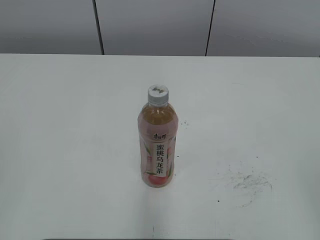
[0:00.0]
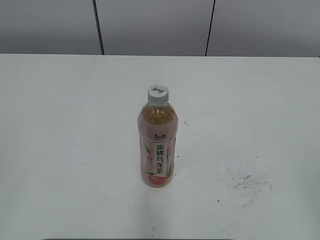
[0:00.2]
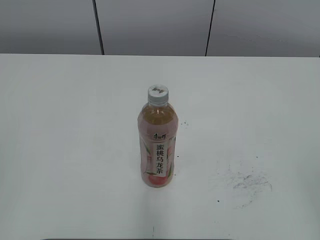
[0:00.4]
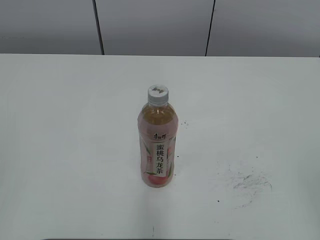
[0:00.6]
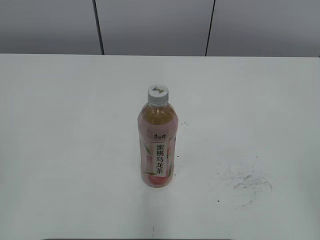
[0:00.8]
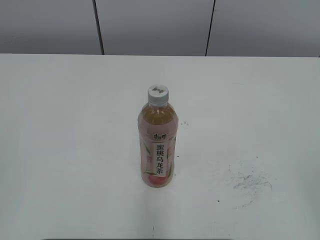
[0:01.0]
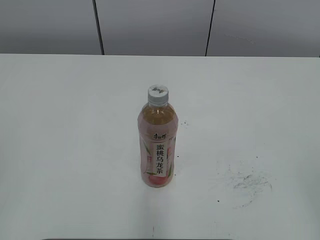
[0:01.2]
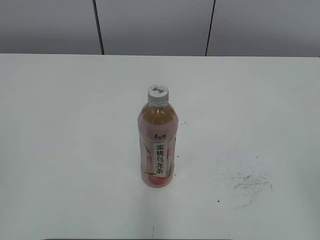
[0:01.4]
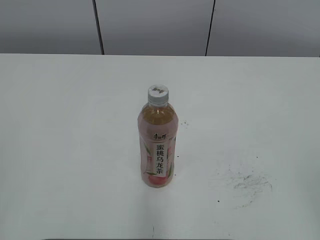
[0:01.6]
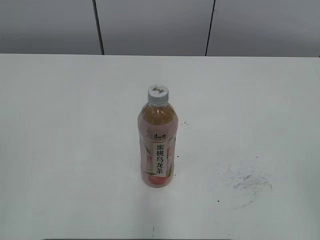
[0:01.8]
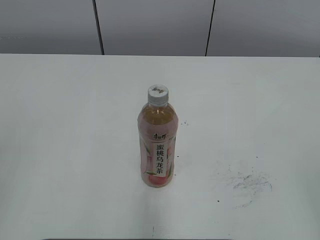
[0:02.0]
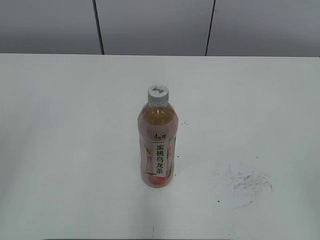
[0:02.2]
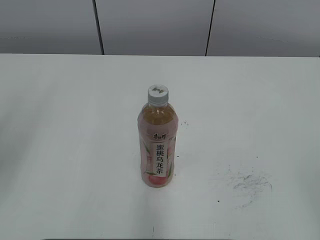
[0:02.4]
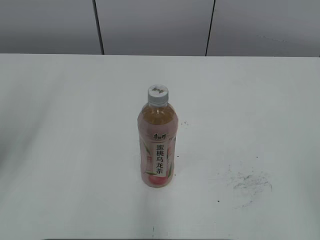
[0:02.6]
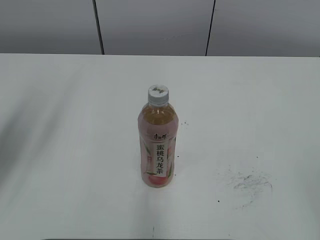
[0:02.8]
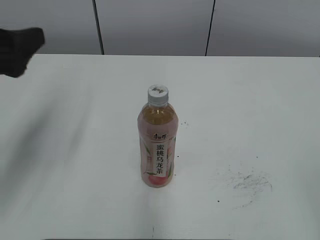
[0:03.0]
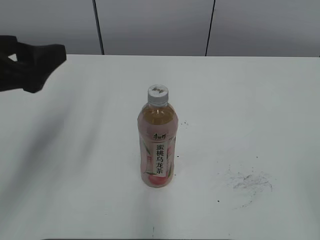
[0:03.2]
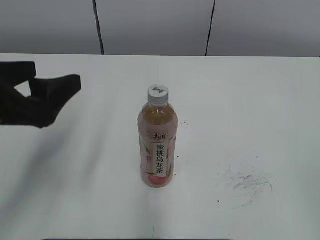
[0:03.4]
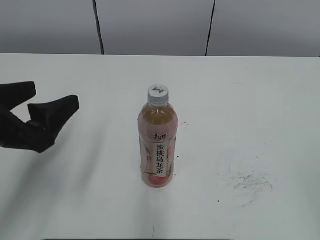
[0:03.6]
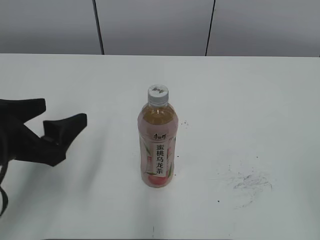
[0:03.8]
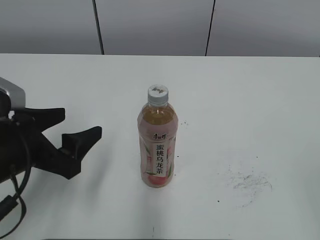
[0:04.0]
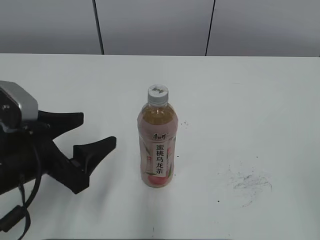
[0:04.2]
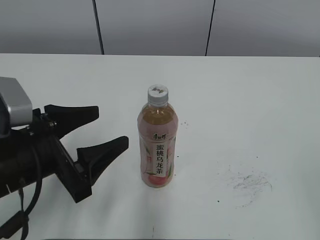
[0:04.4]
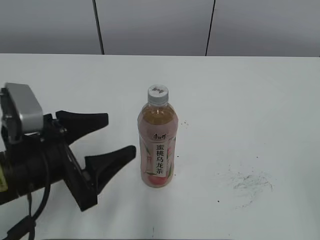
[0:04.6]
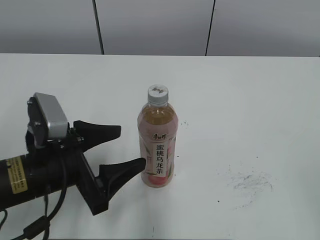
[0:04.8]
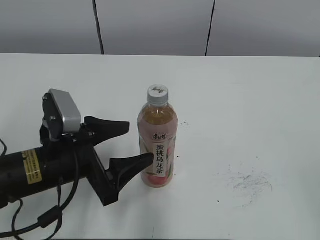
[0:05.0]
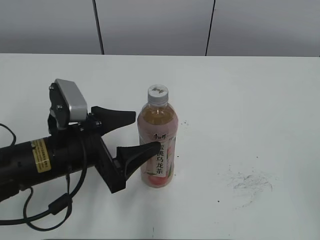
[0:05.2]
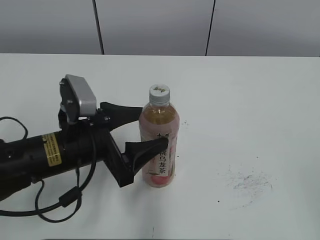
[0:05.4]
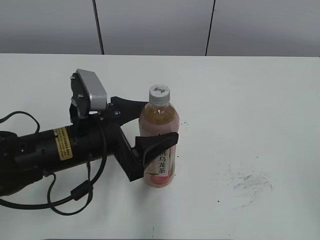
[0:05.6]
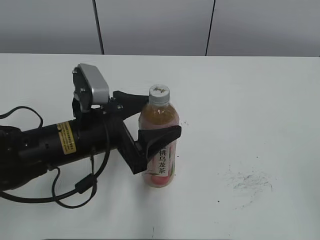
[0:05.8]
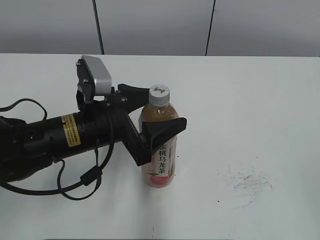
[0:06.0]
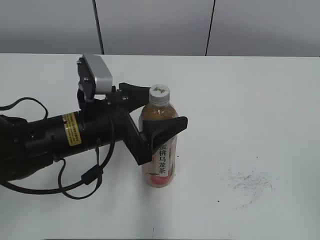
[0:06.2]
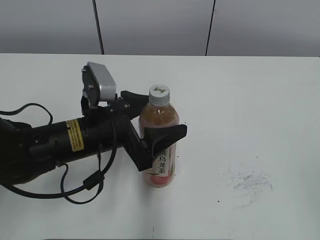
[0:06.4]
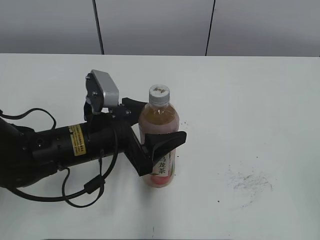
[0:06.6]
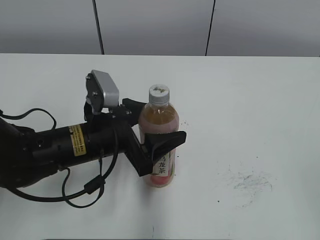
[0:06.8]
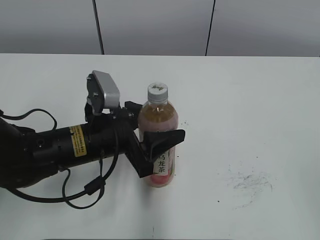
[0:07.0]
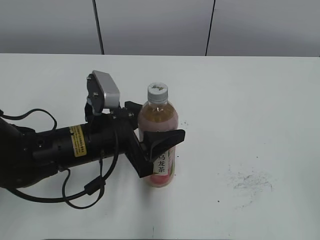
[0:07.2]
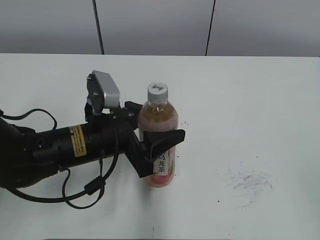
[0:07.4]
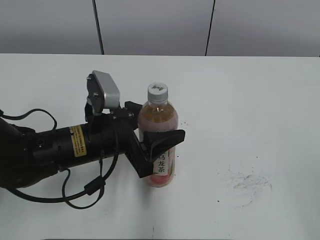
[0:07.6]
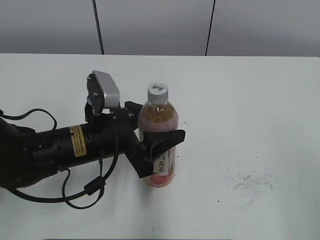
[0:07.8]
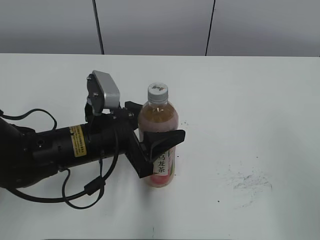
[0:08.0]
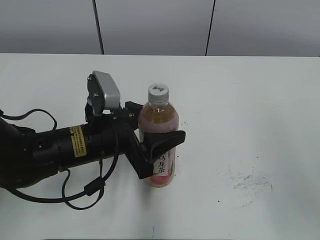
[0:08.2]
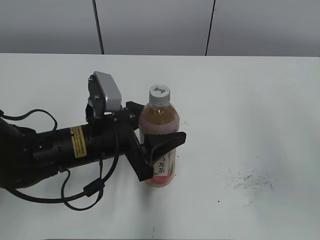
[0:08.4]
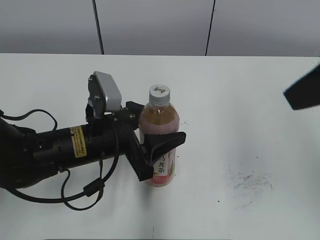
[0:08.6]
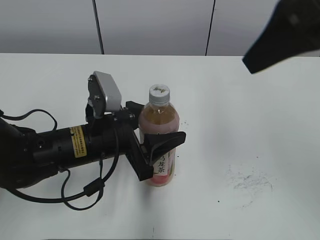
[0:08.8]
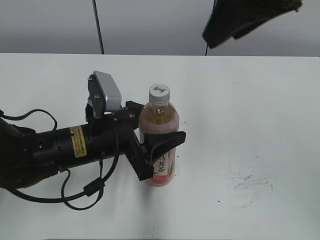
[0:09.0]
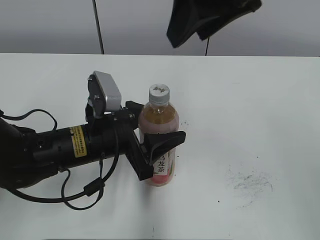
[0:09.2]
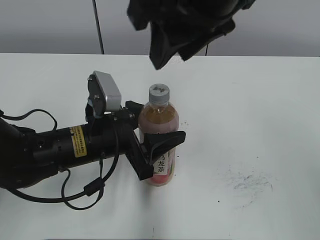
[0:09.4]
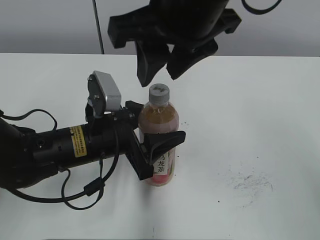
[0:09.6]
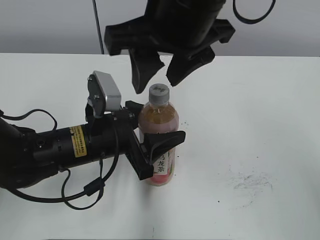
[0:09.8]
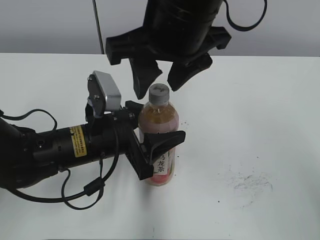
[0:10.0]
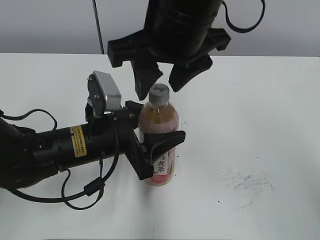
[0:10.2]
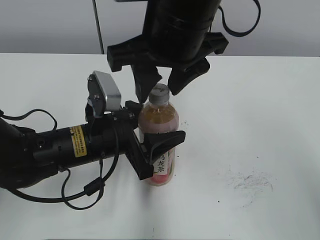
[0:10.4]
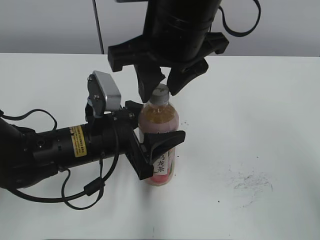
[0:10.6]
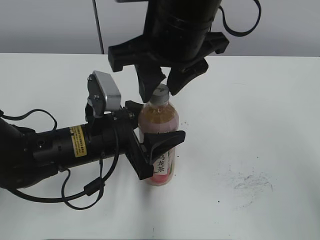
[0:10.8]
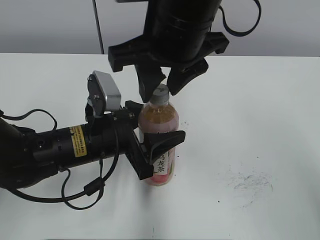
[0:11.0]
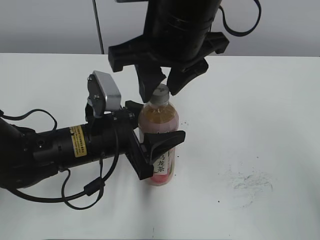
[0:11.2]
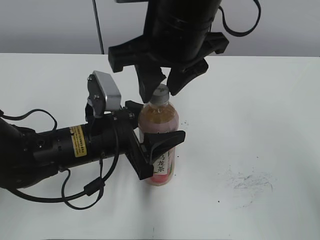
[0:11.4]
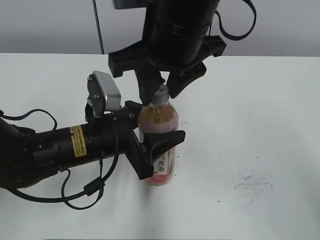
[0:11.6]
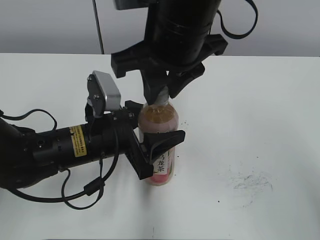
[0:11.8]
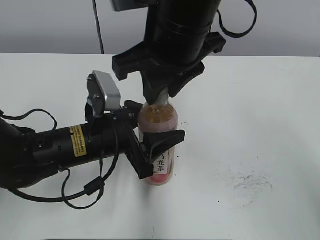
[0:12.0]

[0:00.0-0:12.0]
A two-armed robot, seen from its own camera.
Step, 0:00.0 to 0:09.6: Grab the Peach Oolong Tea with the left hand.
0:01.6 to 0:03.0: The left gripper is displaced forward by approximately 20 cm, and opens.
0:03.0 to 0:04.4: The left gripper goes some 15 cm downward and to the right.
0:04.4 to 0:06.0: The left gripper heads to the right and forward, covering some 10 cm.
0:06.0 to 0:07.6: The grippers move only a little.
0:07.6 to 0:09.0: The right gripper travels forward, to the left and upward by approximately 30 cm.
0:09.0 to 0:10.4: The right gripper is displaced to the left and downward by roughly 15 cm.
0:10.4 to 0:12.0: The grippers make only small movements.

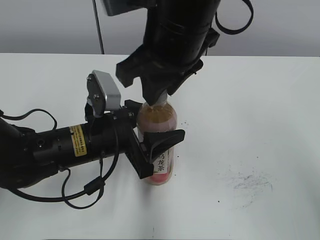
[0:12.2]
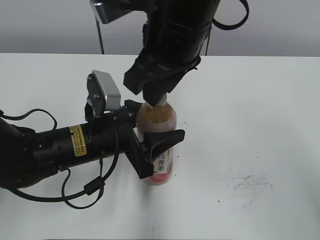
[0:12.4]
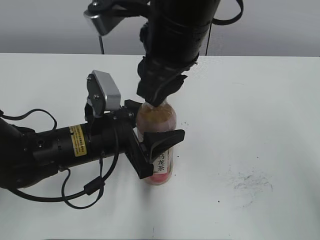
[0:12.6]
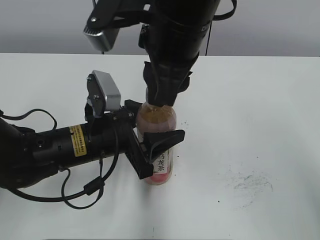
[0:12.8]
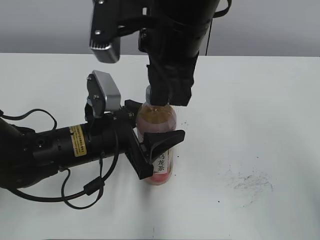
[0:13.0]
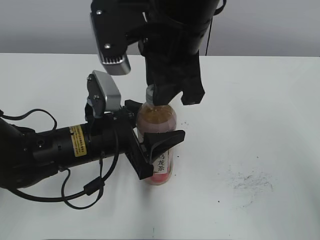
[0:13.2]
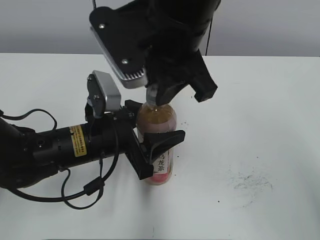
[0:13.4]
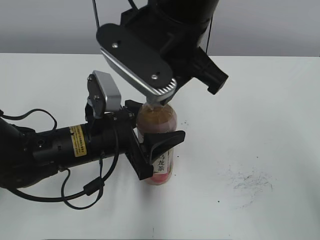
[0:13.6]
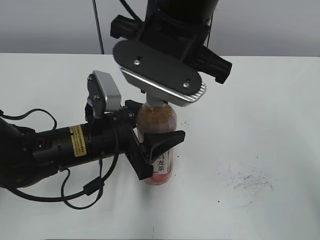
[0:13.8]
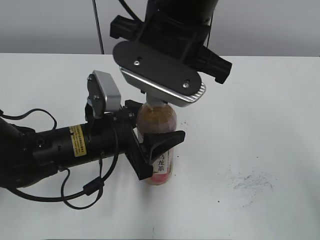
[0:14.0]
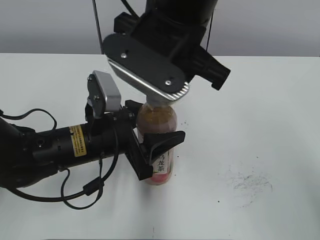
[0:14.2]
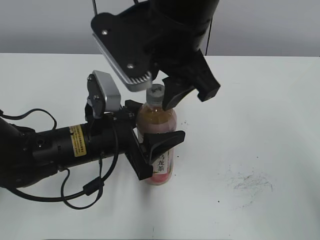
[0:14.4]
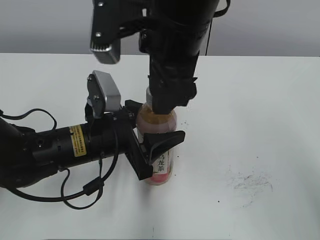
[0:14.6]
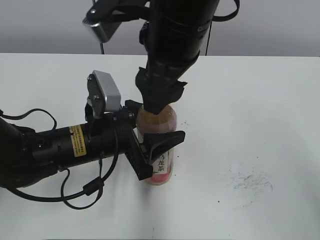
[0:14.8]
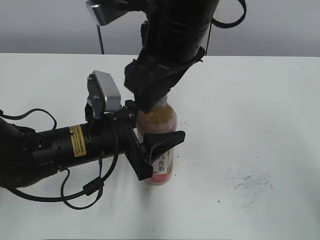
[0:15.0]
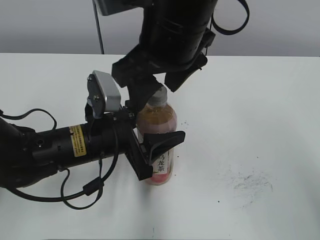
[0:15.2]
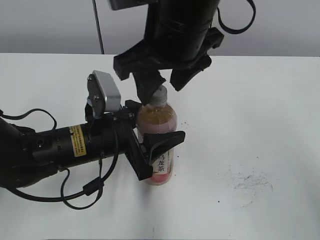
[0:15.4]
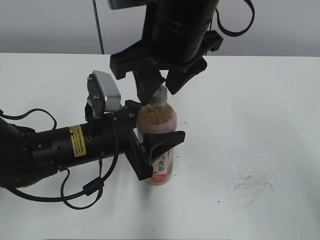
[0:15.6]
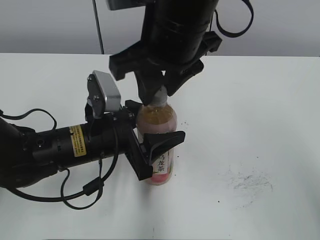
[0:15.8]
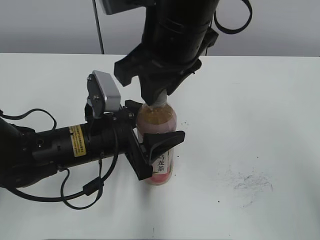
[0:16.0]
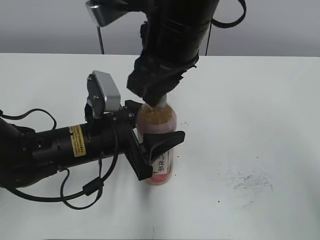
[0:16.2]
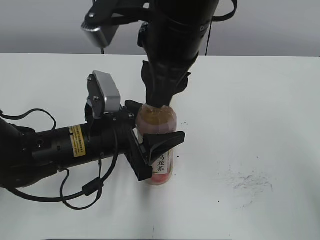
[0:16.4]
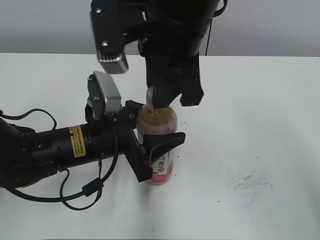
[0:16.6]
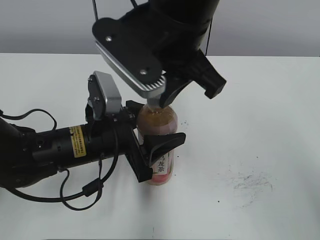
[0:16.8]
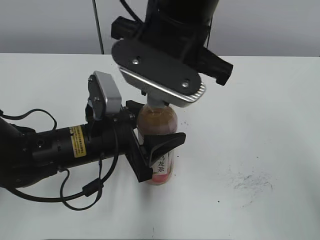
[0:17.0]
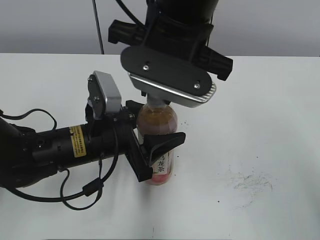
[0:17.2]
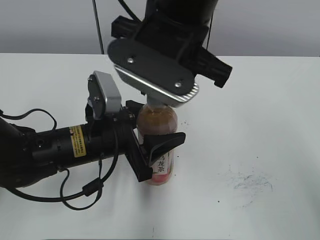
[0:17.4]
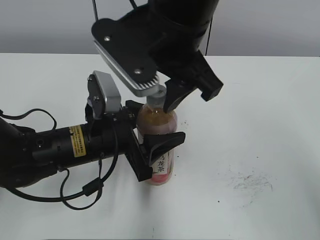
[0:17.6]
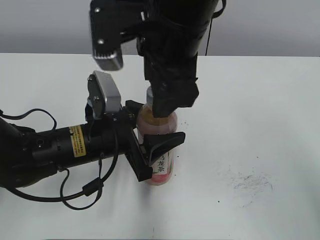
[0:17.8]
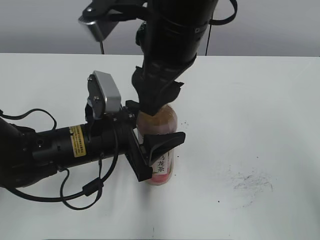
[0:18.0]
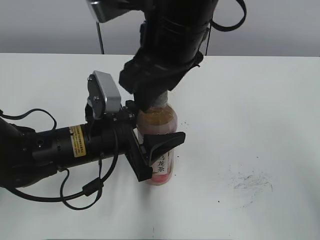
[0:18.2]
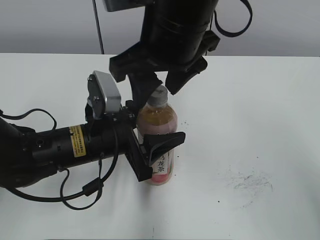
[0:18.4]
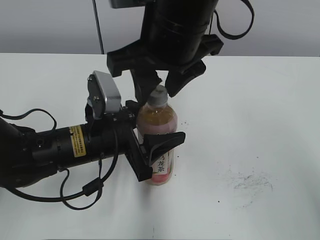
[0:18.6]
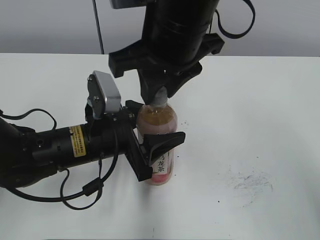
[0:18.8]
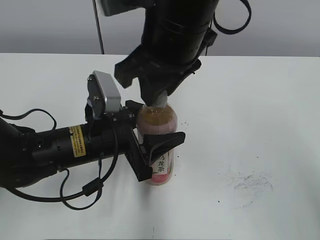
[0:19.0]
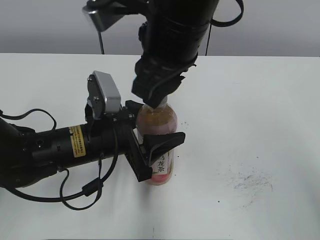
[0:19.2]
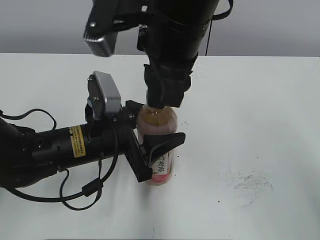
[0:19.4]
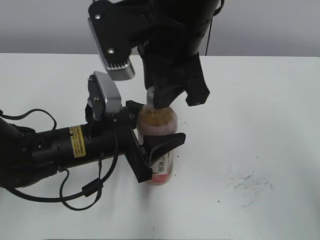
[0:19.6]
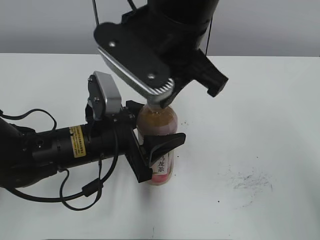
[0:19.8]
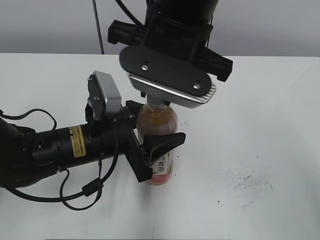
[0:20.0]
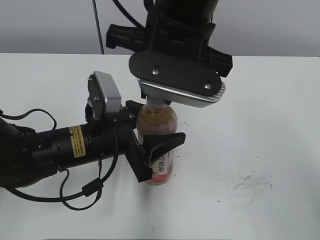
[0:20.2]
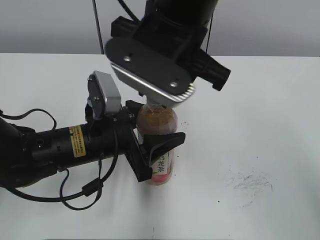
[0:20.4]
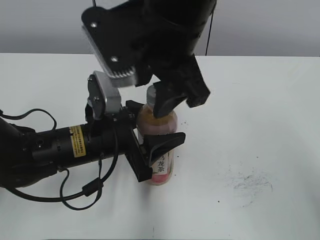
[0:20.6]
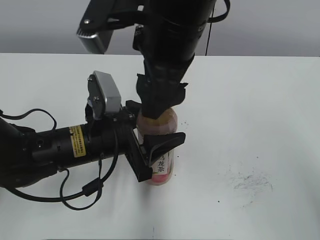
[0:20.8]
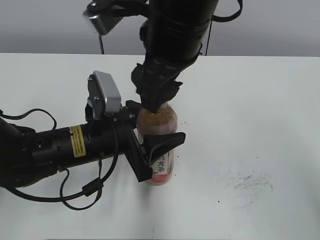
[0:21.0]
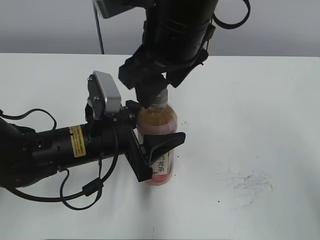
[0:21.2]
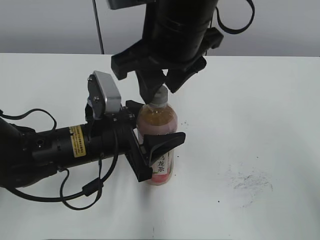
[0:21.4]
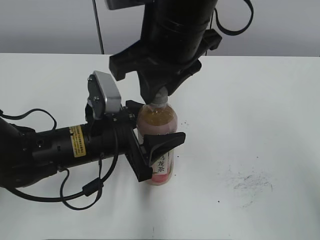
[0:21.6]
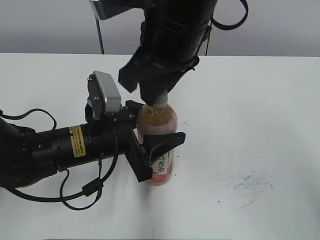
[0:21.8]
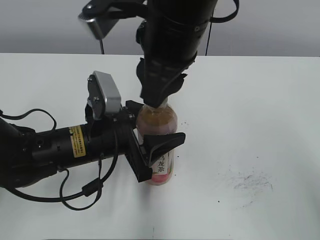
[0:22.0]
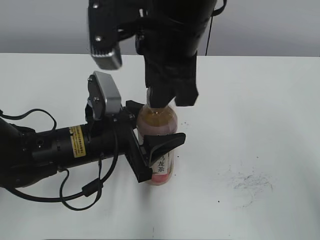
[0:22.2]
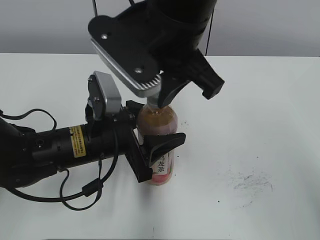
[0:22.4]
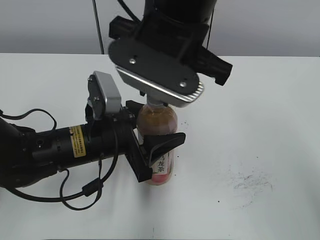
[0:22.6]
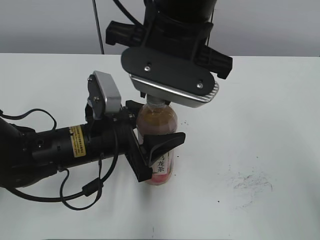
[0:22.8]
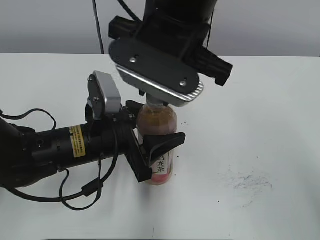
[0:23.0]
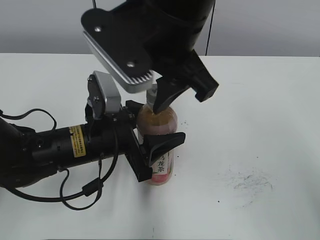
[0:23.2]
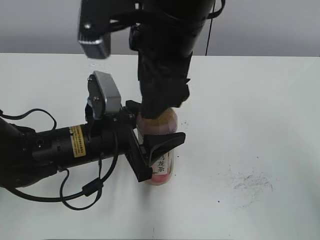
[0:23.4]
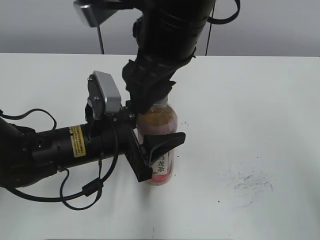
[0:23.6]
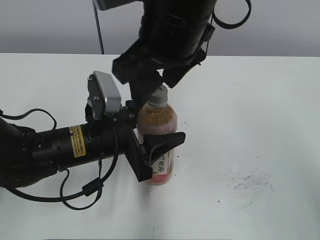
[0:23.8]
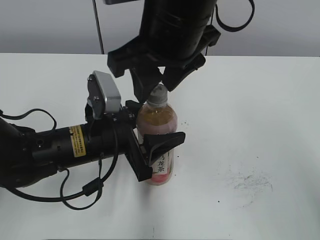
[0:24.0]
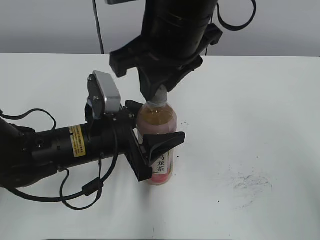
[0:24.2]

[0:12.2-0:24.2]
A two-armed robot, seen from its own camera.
0:13.8 to 0:15.2: The right gripper opens its fingers.
0:15.2 to 0:16.6: The right gripper closes its fingers.
0:16.6 to 0:18.2: The right gripper opens up.
0:18.2 to 0:19.8: The right gripper closes.
0:19.8 to 0:21.2: The right gripper opens its fingers.
0:21.2 to 0:22.6: The right gripper closes its fingers.
0:22.6 to 0:24.2: The right gripper opens, then closes once more.
